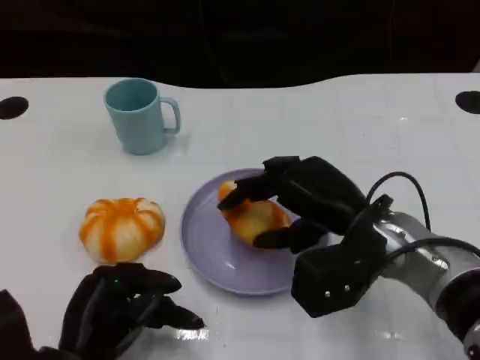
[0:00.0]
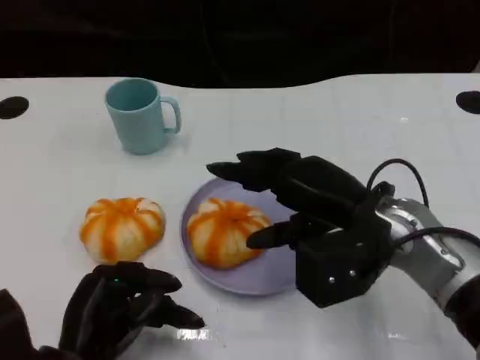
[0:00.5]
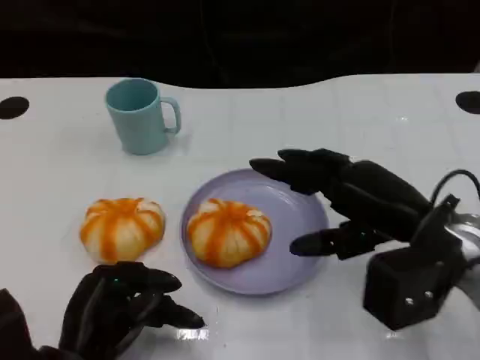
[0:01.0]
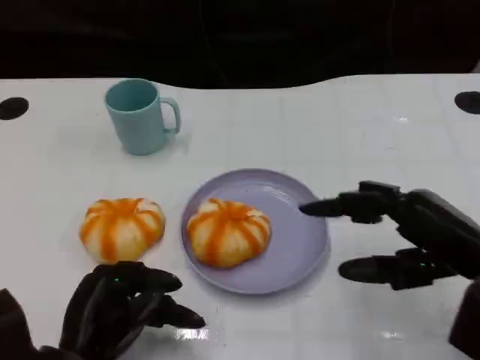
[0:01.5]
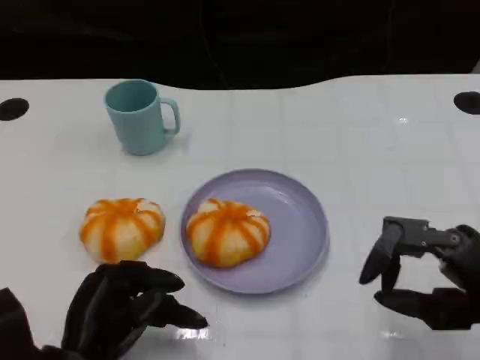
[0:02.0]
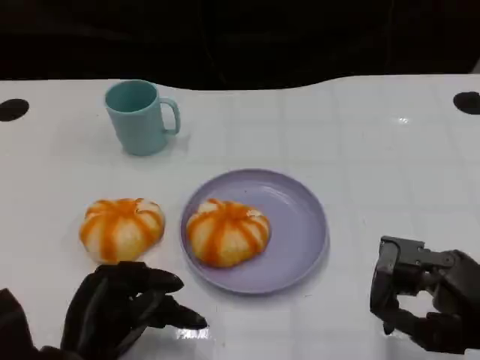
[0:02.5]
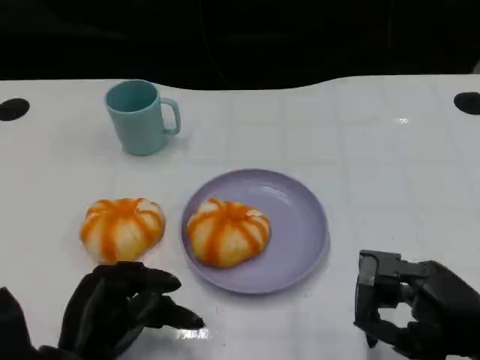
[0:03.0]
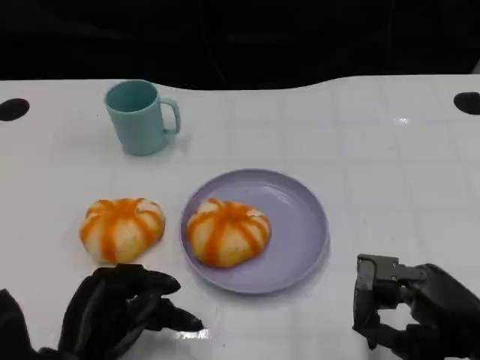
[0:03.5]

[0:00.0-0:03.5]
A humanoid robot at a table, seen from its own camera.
Task of the whole recording: Grasp the bread from the table and place it into the plate.
0:00.0 to 0:02.0: The right hand is displaced to the right and backward by roughly 15 cm.
0:02.0 to 0:03.5: The hands move only a little.

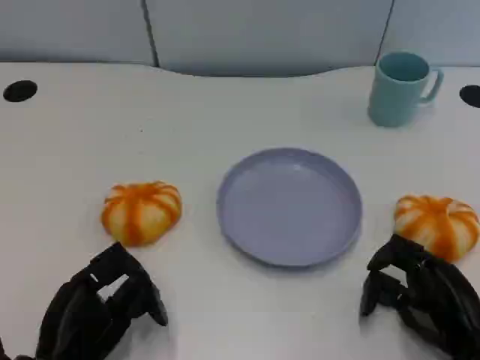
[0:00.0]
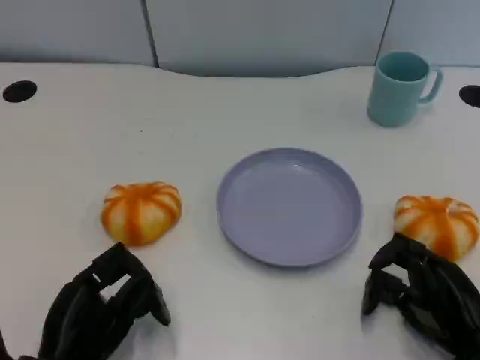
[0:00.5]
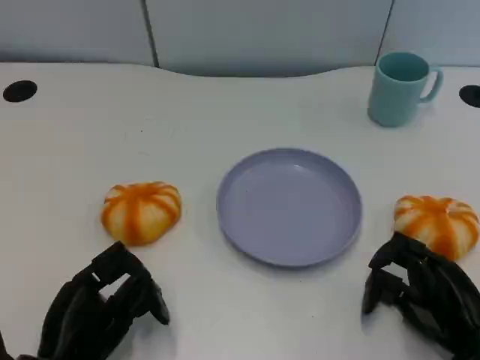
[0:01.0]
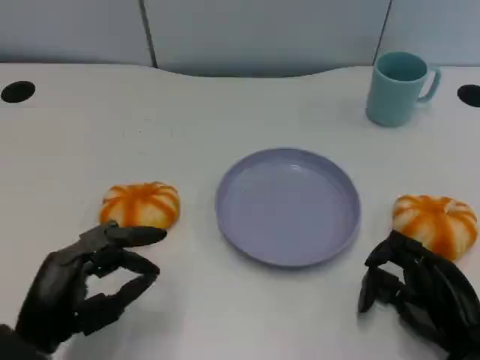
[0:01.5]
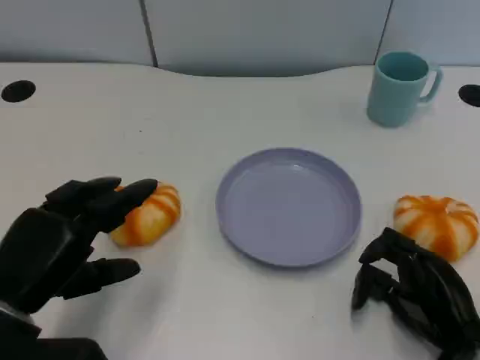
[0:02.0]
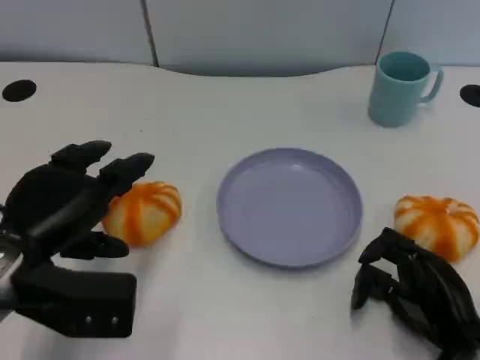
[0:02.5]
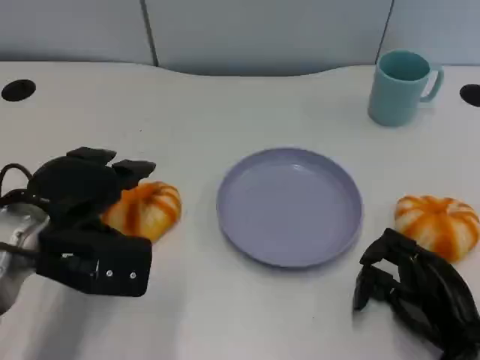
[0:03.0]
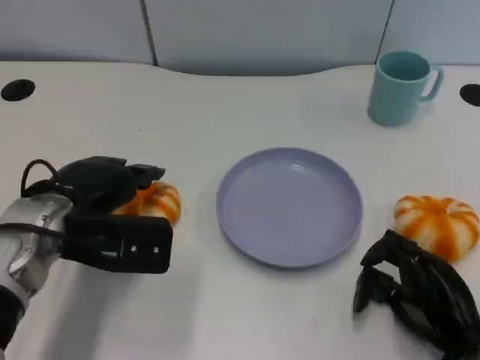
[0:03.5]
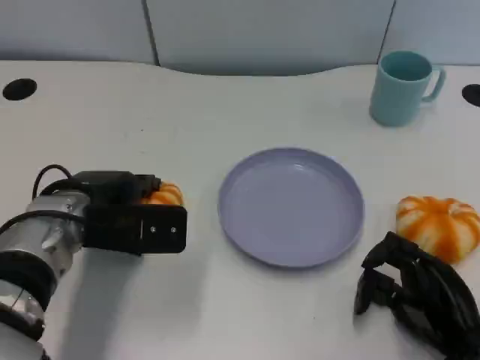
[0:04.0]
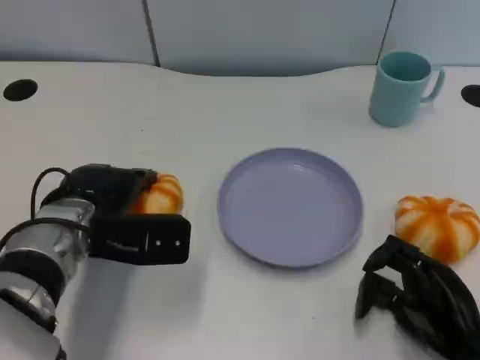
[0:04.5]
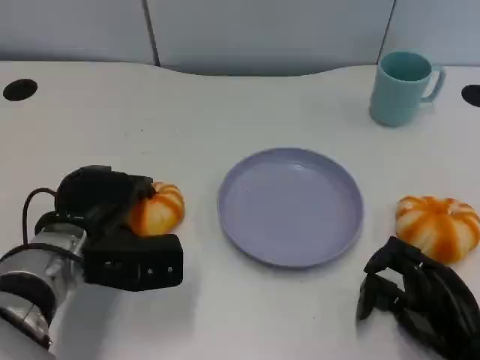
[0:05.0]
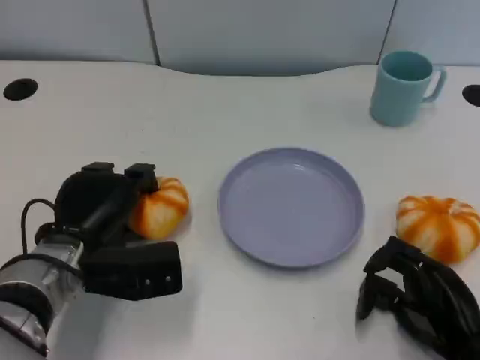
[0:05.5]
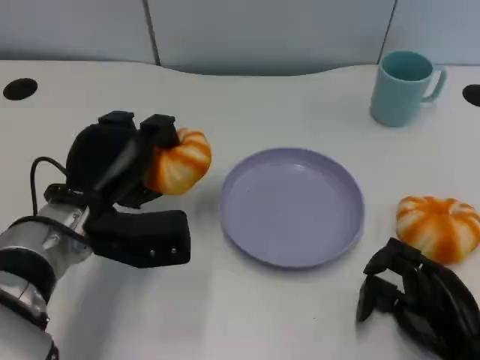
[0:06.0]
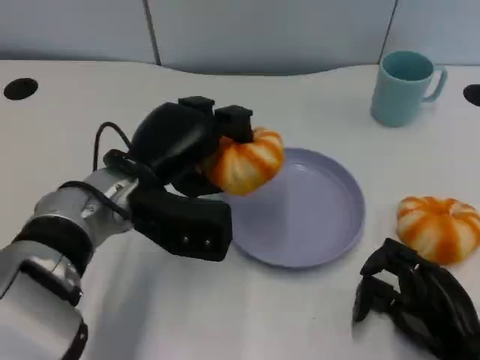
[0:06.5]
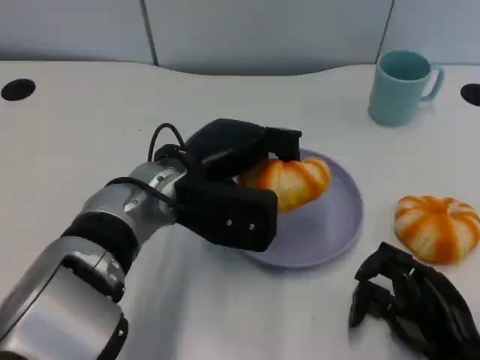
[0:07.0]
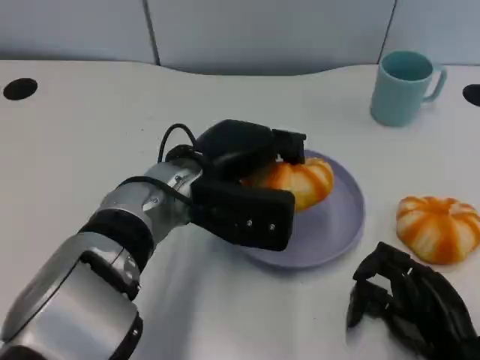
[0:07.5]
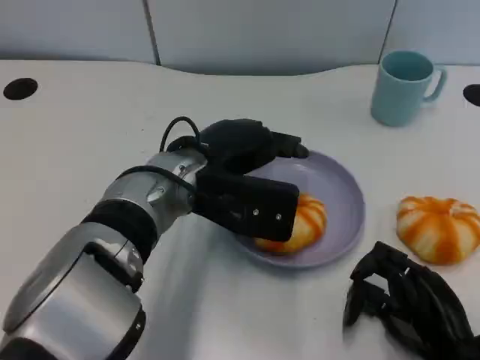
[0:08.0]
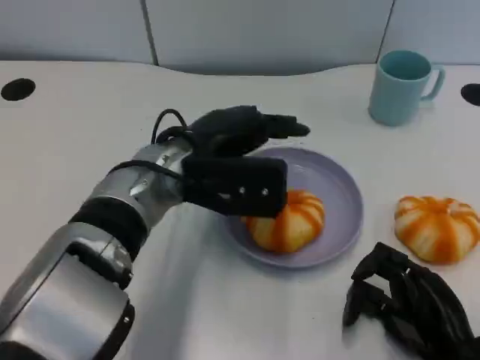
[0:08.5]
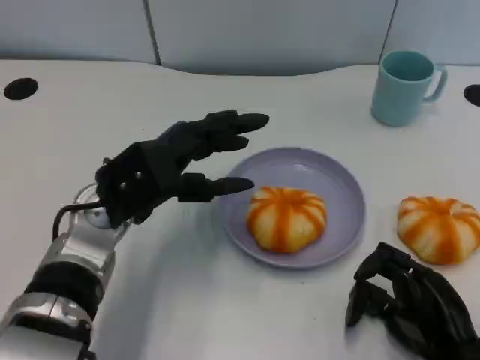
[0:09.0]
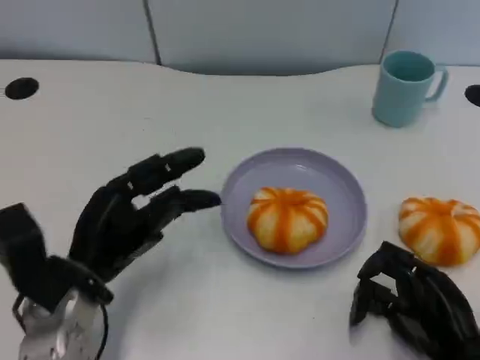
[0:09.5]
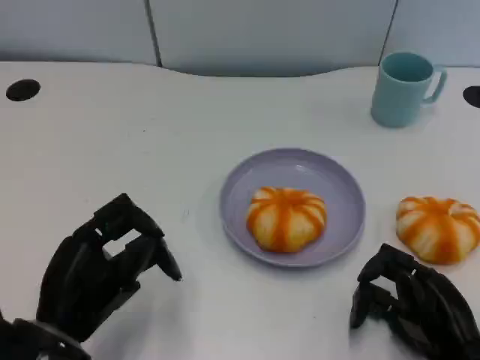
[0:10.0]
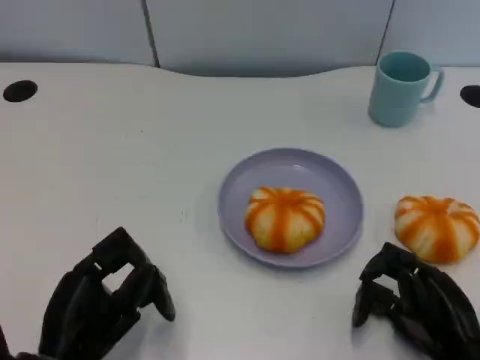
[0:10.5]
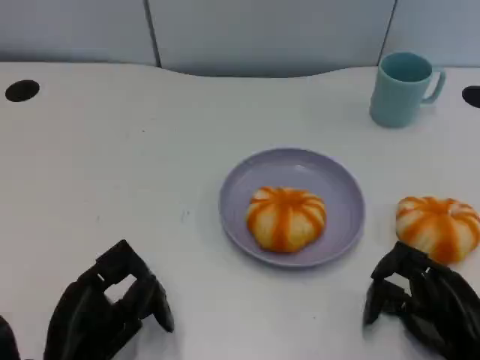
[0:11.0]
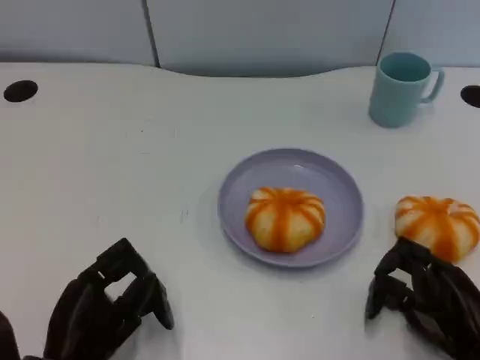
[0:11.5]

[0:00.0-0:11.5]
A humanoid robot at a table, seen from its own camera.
Task of the whole recording: Grasp the bread from the table and place it into the plate.
0:00.0 to 0:02.0: The left hand moves upward, some 10 cm.
0:02.0 to 0:04.0: The left hand heads forward and to the right, covering approximately 15 cm.
0:06.0 to 0:07.5: The left hand heads to the right, covering about 10 cm.
0:07.5 to 0:09.5: The left hand travels to the left, backward and downward by approximately 15 cm.
0:09.5 to 0:11.5: The left hand goes approximately 10 cm backward.

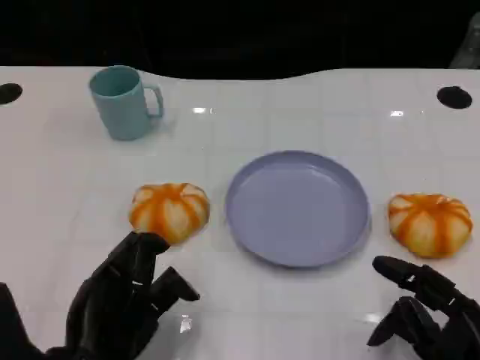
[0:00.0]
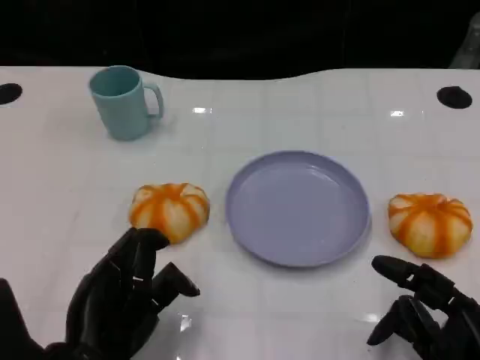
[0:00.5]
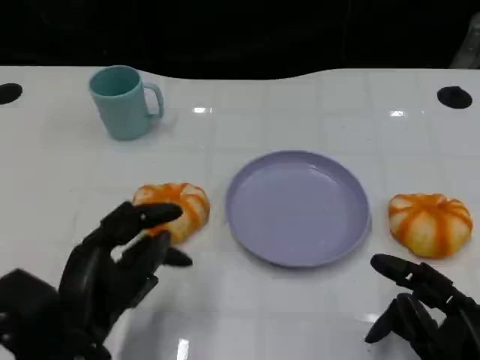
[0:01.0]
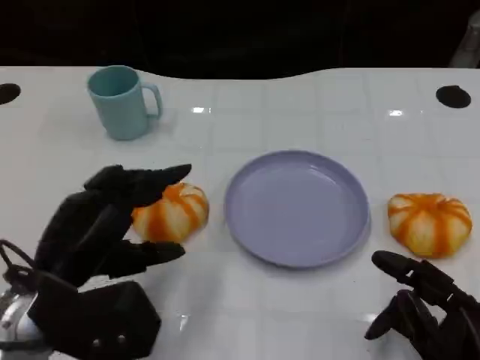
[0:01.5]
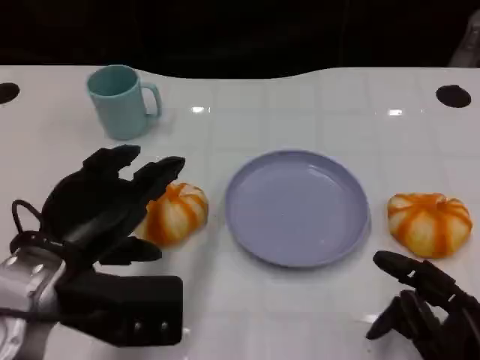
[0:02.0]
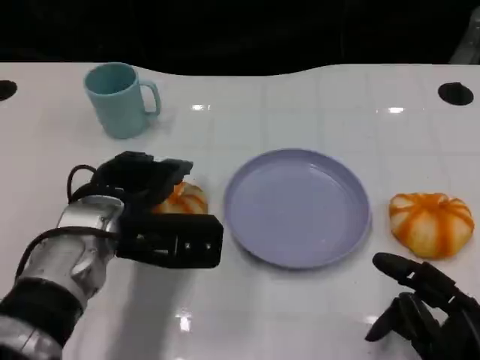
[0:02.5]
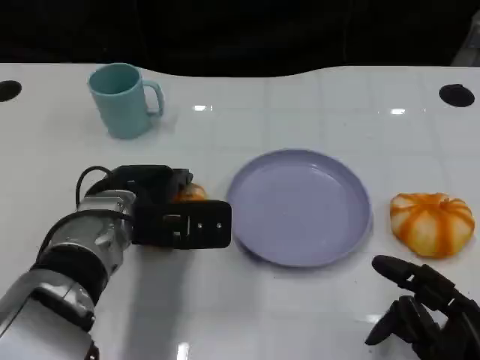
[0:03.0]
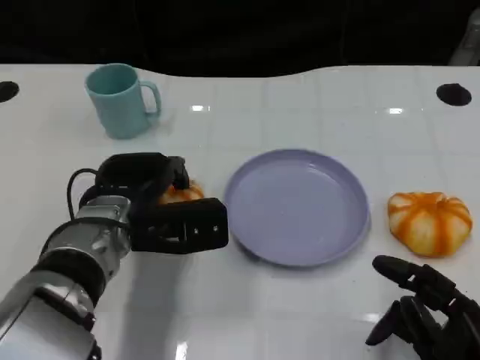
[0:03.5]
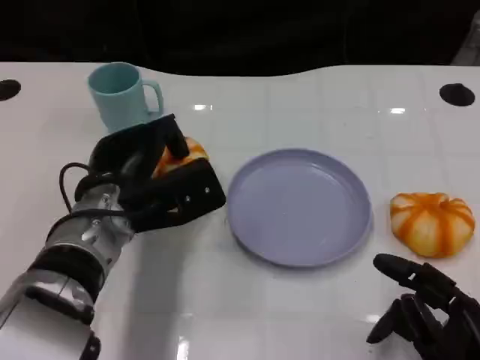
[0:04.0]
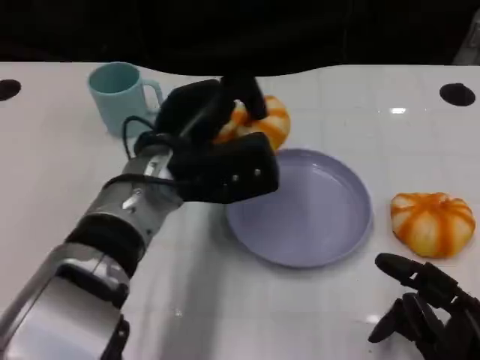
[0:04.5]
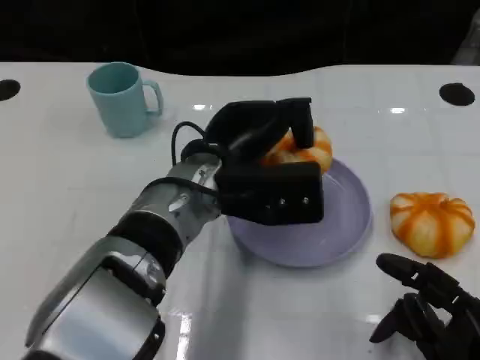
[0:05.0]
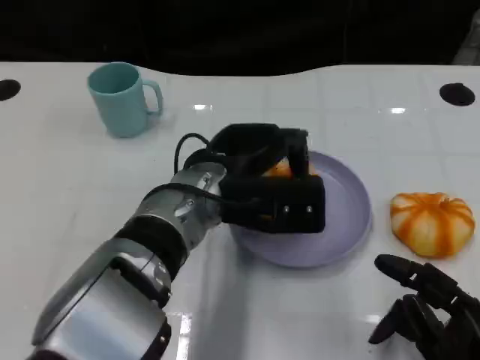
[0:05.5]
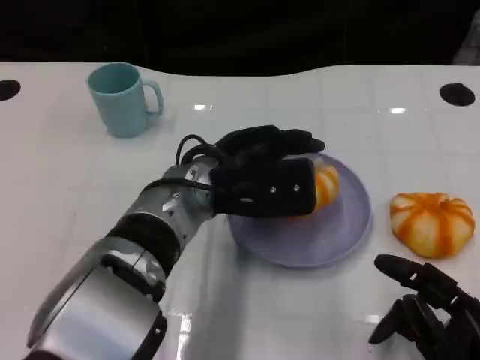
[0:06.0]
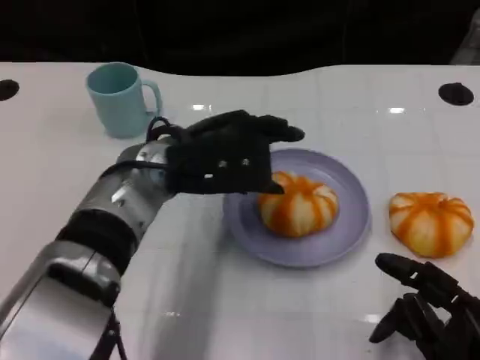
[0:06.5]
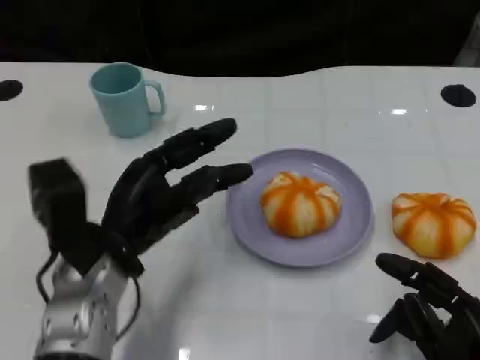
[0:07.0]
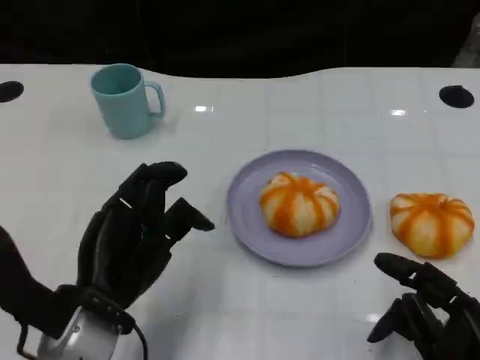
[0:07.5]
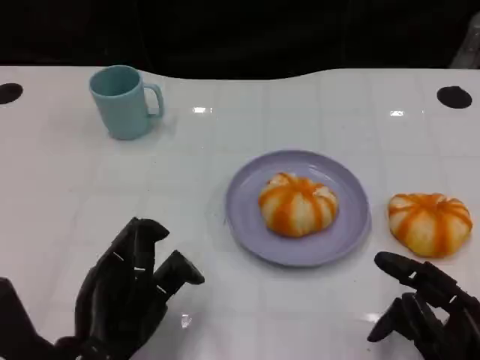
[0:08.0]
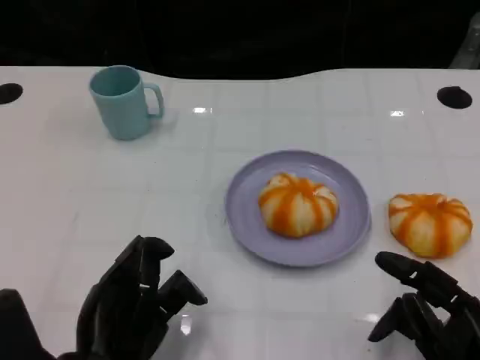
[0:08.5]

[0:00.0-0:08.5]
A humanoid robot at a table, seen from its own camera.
Task of the whole recording: Grasp the bread from the table and place it into the plate.
0:00.0 to 0:02.0: The left hand heads forward and upward, covering roughly 10 cm.
0:02.0 to 0:04.0: The left hand shifts some 10 cm forward and to the right.
0:06.5 to 0:08.5: The left hand is displaced backward and downward by some 20 cm.

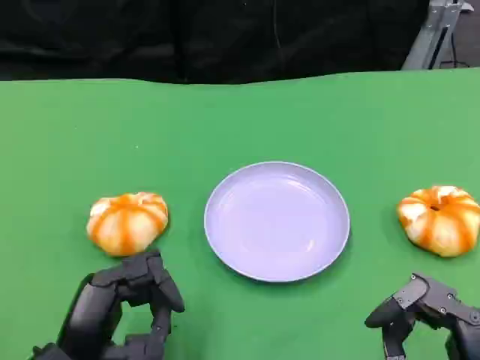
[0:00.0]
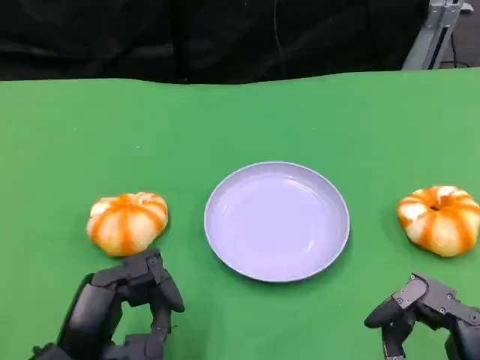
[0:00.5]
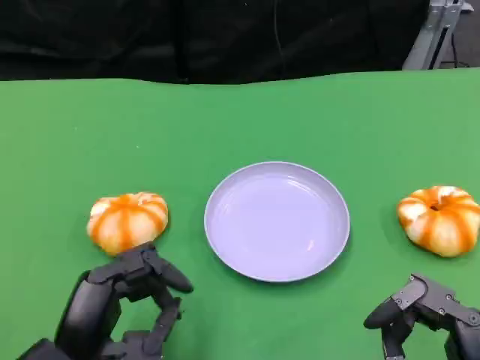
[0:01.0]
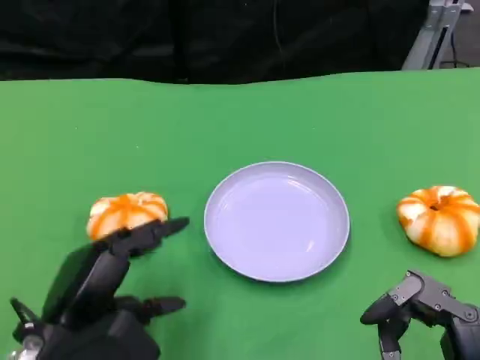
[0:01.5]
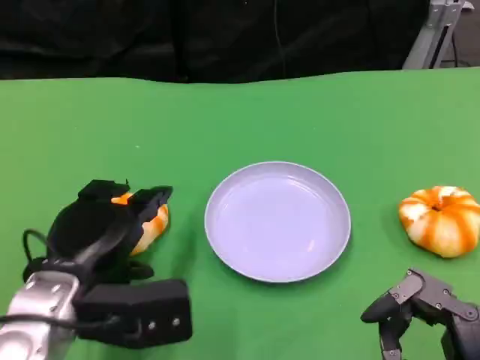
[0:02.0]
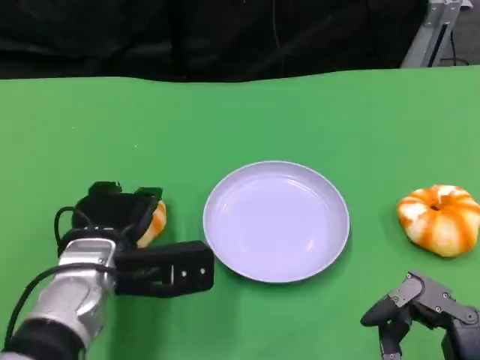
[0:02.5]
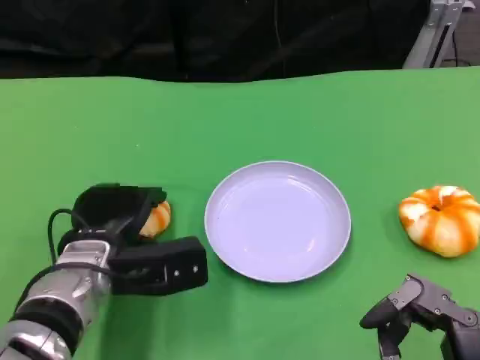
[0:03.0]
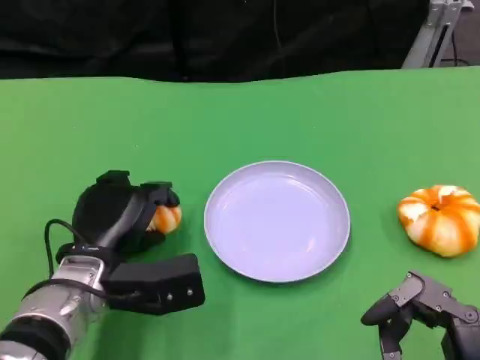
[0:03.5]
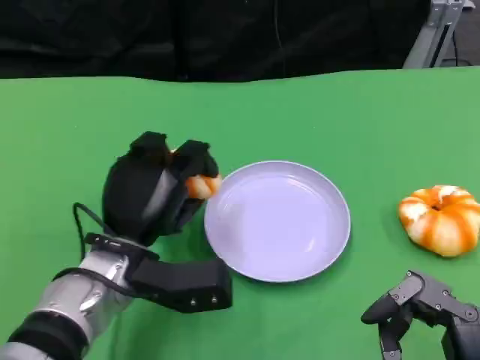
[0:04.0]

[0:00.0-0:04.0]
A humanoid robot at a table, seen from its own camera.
Task of the whole recording: Grasp the bread from the table and place it into the plate.
0:00.0 to 0:02.0: The left hand travels forward by roughly 10 cm.
0:02.0 to 0:04.0: The left hand moves to the right, some 5 cm.
